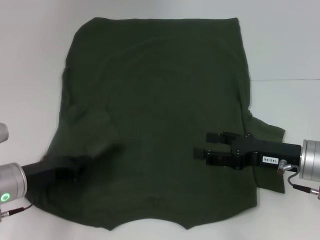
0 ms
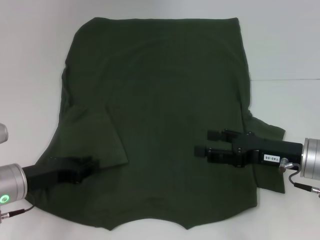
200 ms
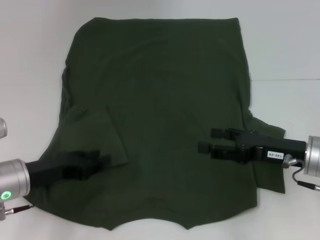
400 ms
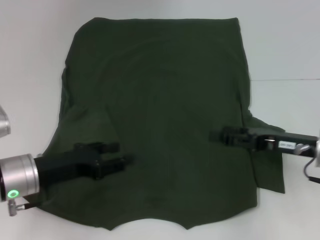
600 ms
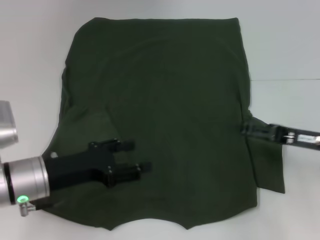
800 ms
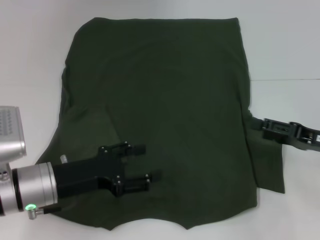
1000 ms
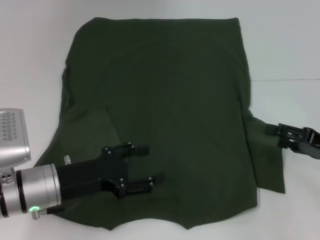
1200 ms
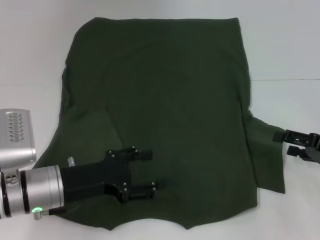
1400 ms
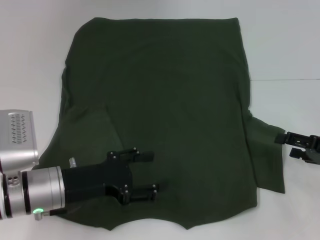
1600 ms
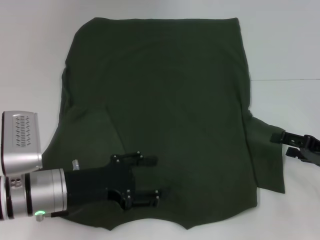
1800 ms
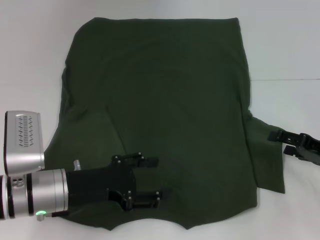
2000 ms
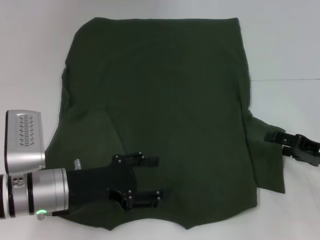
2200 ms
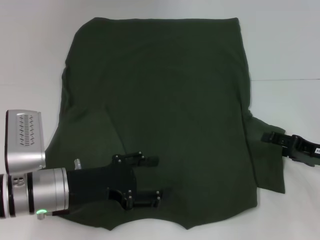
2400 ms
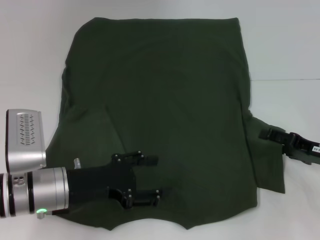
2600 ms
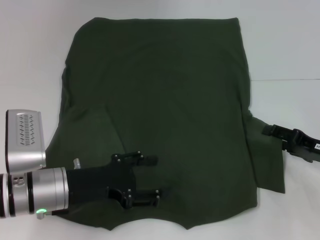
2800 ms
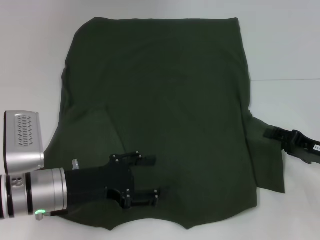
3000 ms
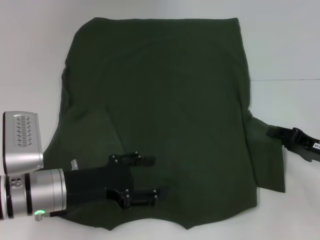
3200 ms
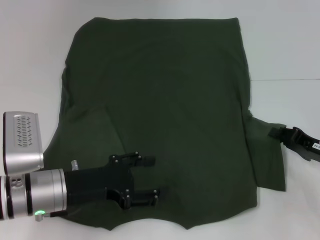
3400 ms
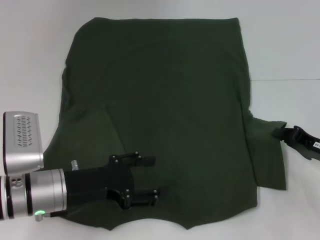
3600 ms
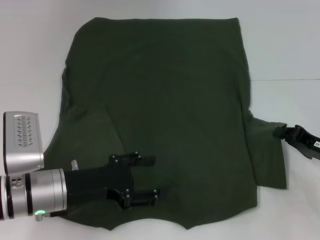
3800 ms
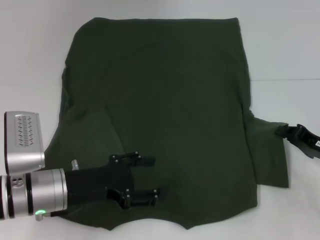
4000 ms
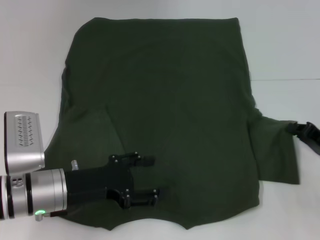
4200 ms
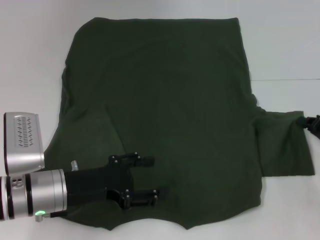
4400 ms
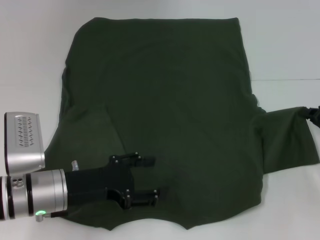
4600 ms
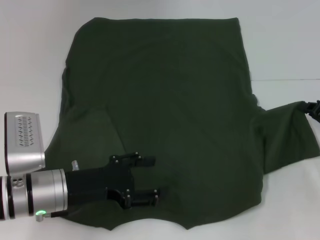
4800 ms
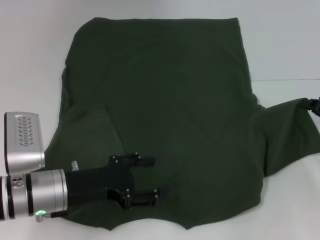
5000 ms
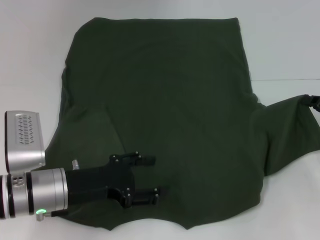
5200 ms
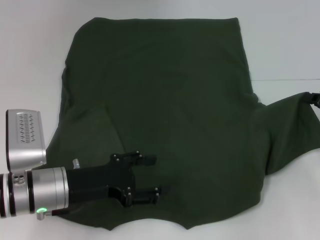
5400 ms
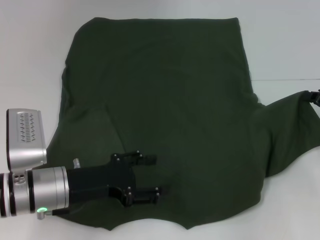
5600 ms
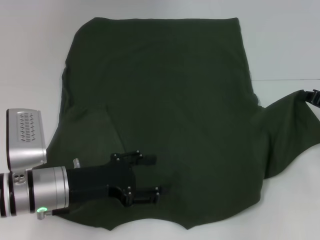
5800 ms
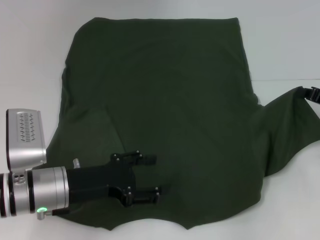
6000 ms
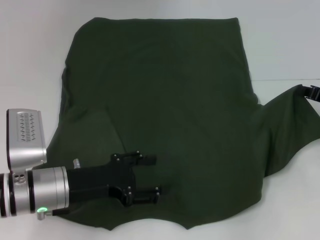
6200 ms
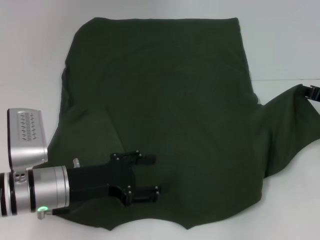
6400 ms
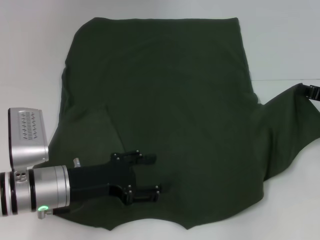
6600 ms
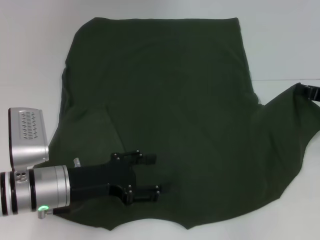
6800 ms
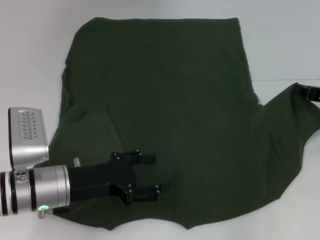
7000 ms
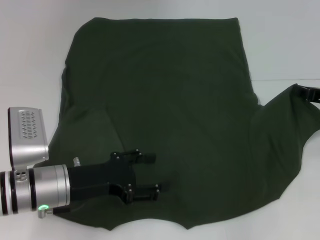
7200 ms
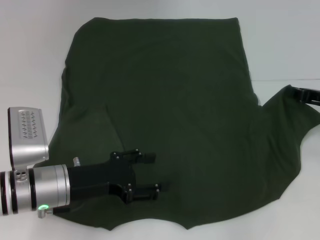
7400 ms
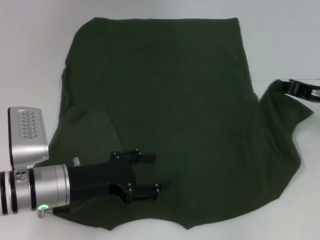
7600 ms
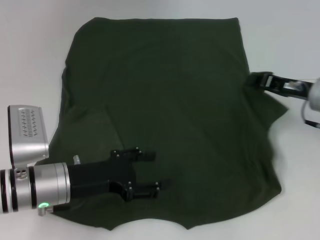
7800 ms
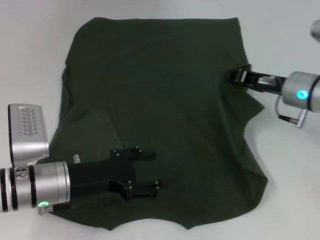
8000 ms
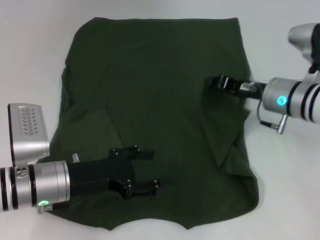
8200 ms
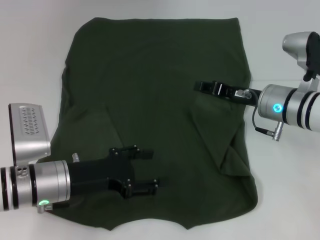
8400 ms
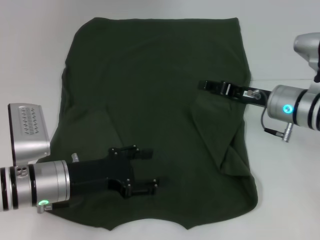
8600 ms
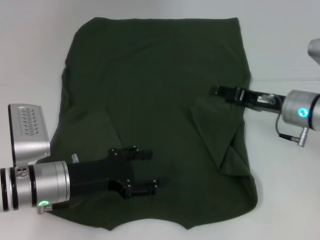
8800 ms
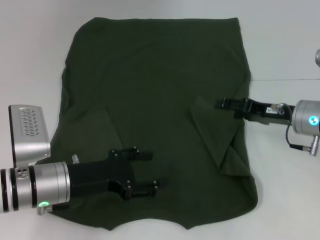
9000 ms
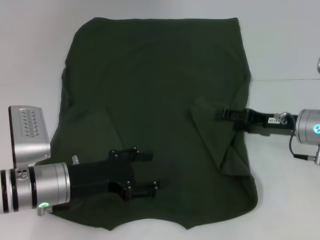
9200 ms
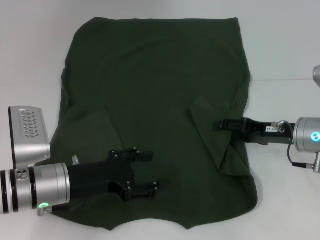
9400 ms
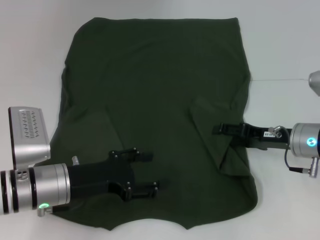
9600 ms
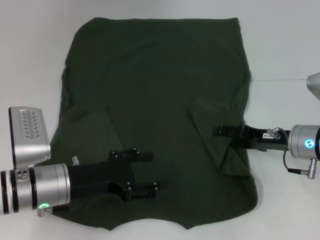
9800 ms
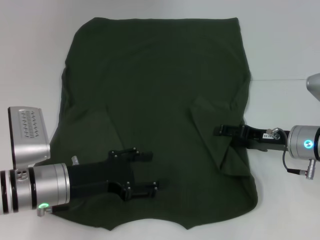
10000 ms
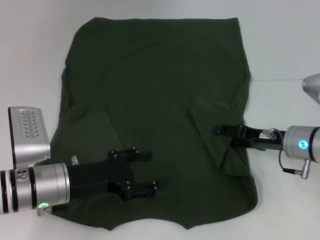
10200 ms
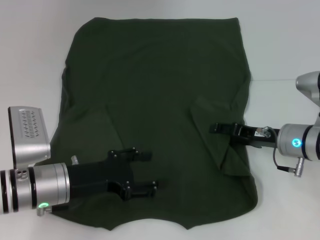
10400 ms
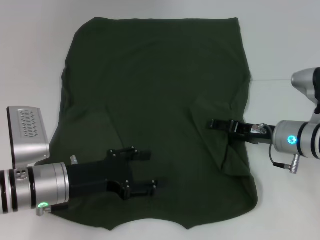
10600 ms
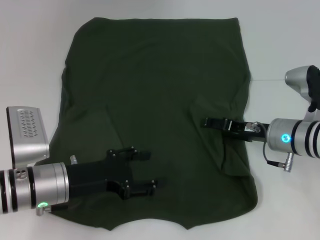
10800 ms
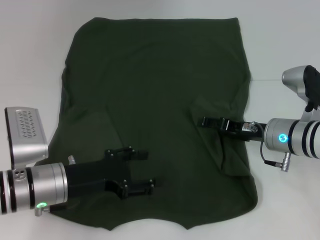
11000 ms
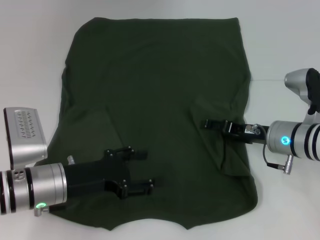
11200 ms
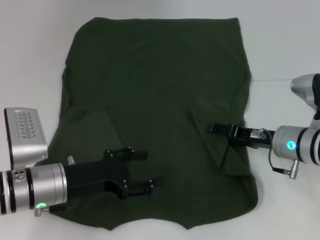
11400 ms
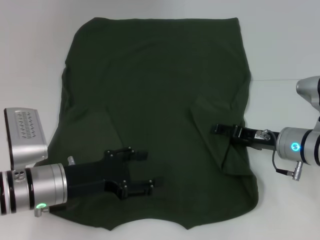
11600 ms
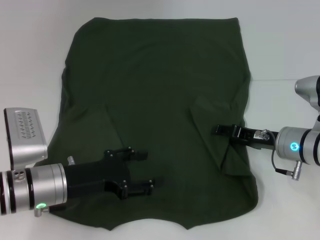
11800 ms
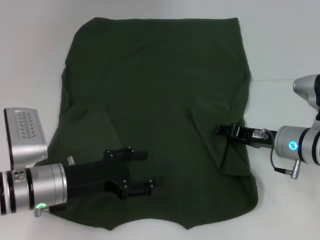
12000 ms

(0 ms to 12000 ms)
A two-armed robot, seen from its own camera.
0 ms - 1600 ms: The right gripper travels to the right by about 10 cm. Meanwhile the left gripper travels to the right by roughly 5 cm, and opens its fingers.
1600 ms - 3000 ms: The grippers make only small movements.
3000 ms - 4400 ms: The right gripper closes up.
4400 ms - 6000 ms: The right gripper goes some 5 cm forward.
6000 ms - 7600 ms: The grippers make only small movements.
7600 ms - 9000 ms: The right gripper is displaced to the left by about 5 cm, and opens.
9000 ms - 12000 ms: The grippers move only a little.

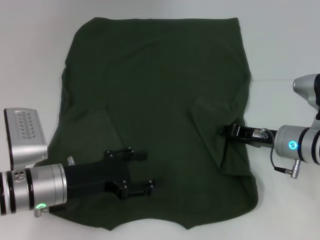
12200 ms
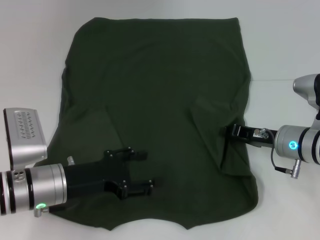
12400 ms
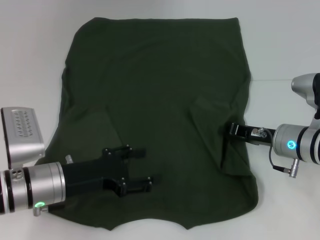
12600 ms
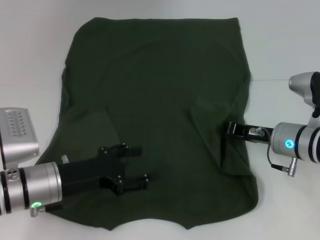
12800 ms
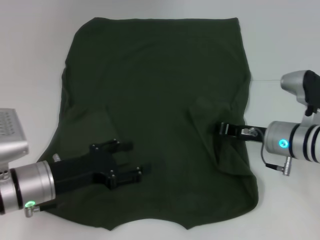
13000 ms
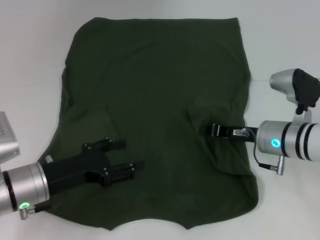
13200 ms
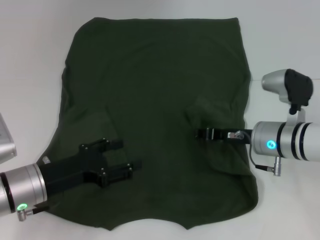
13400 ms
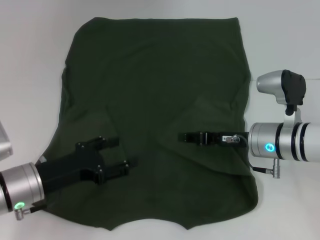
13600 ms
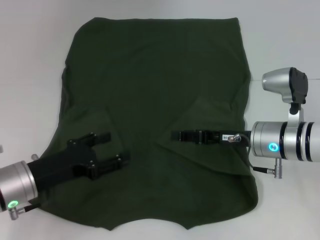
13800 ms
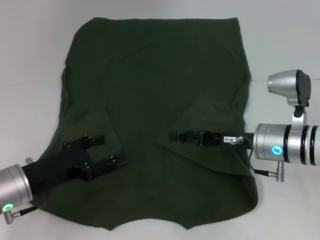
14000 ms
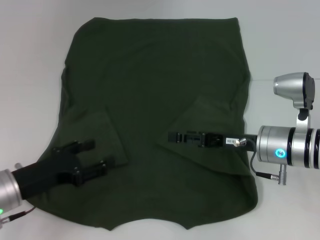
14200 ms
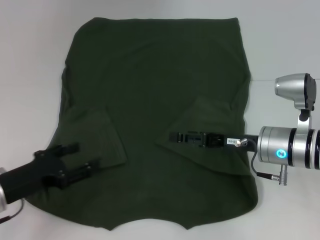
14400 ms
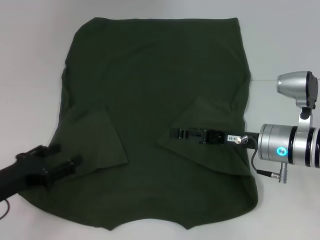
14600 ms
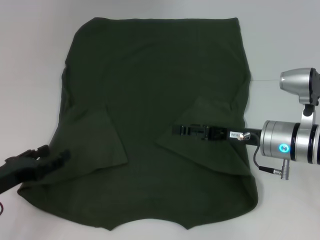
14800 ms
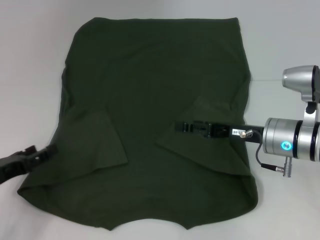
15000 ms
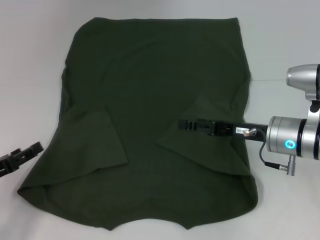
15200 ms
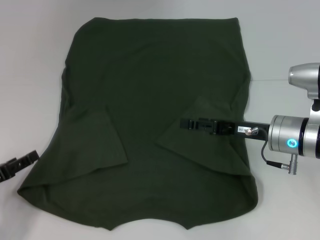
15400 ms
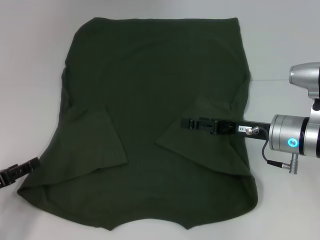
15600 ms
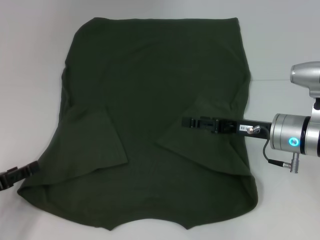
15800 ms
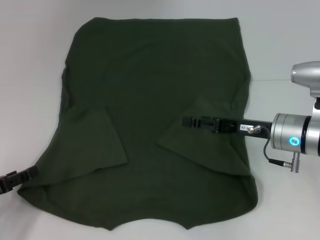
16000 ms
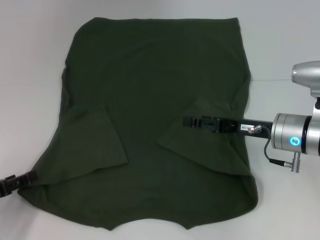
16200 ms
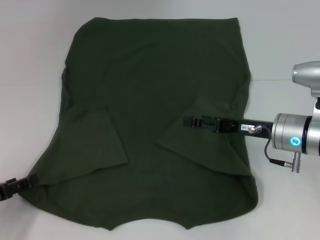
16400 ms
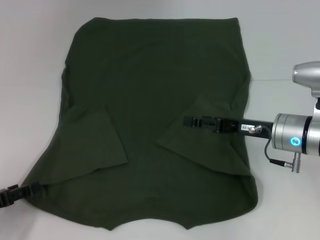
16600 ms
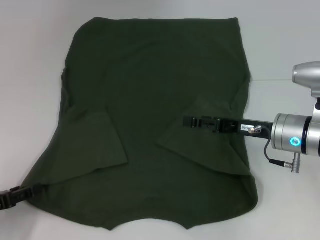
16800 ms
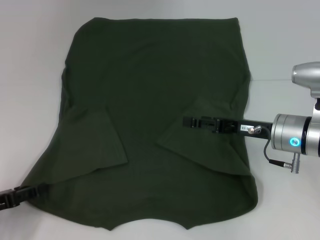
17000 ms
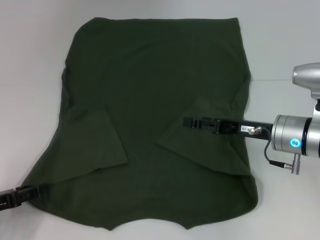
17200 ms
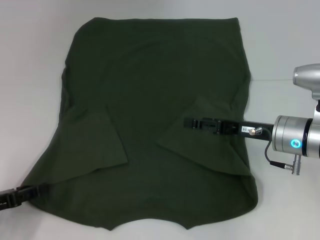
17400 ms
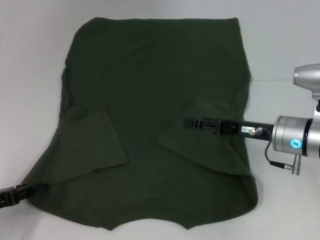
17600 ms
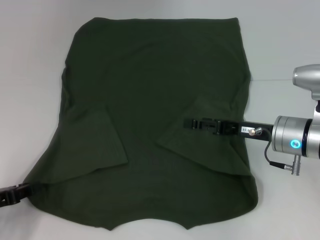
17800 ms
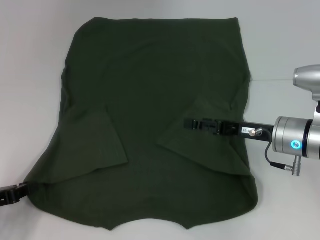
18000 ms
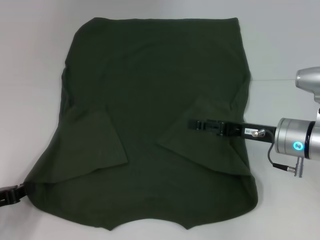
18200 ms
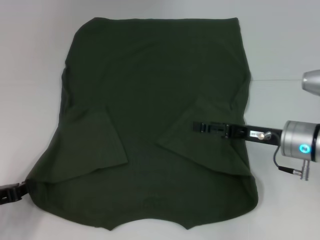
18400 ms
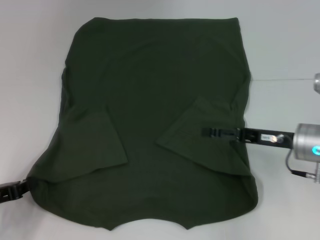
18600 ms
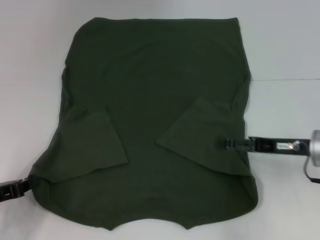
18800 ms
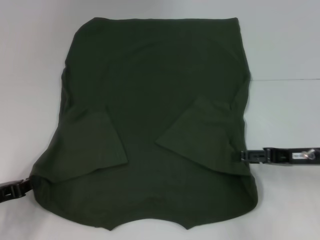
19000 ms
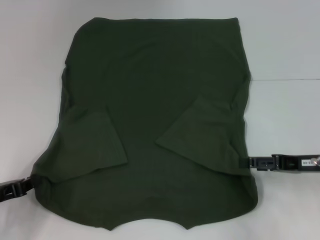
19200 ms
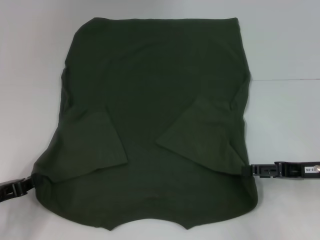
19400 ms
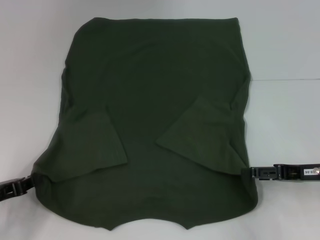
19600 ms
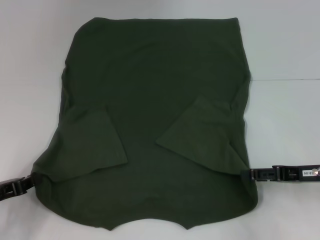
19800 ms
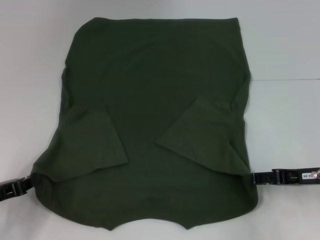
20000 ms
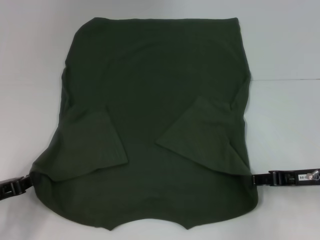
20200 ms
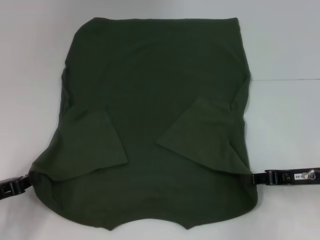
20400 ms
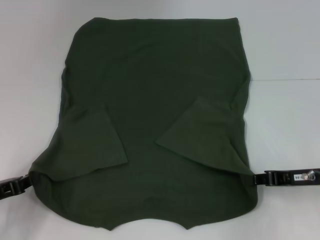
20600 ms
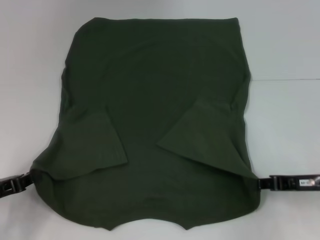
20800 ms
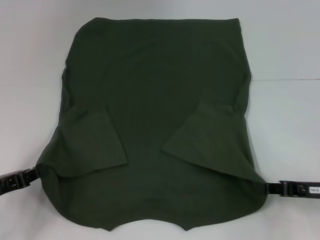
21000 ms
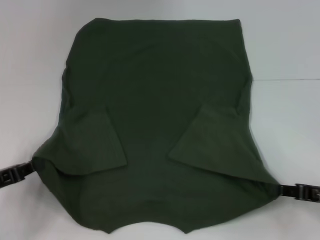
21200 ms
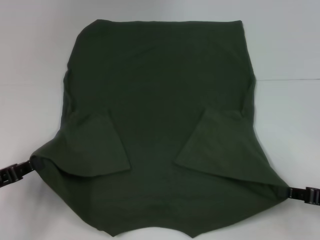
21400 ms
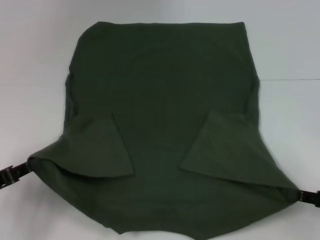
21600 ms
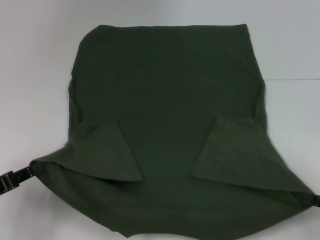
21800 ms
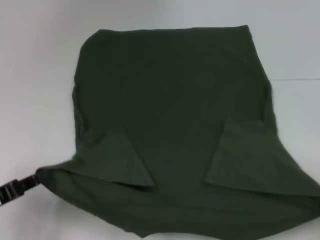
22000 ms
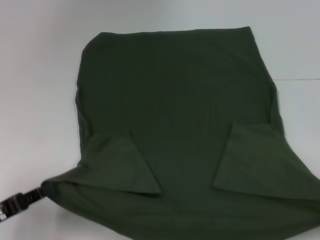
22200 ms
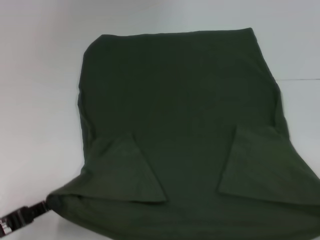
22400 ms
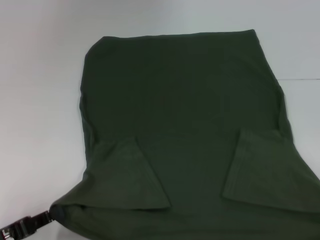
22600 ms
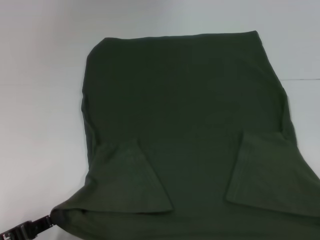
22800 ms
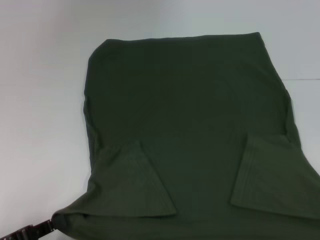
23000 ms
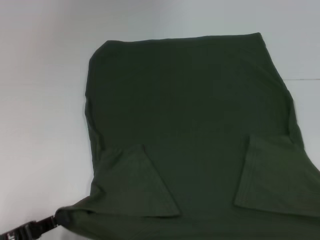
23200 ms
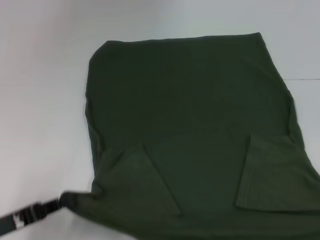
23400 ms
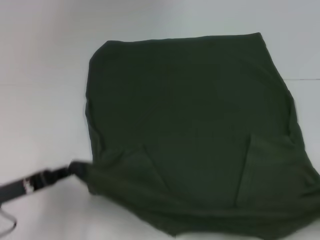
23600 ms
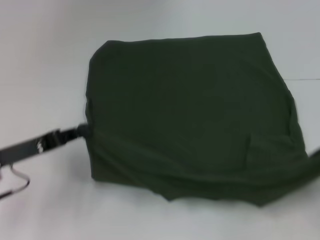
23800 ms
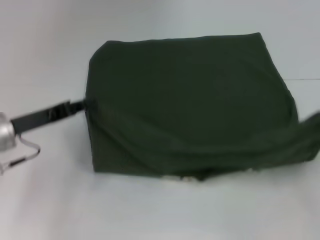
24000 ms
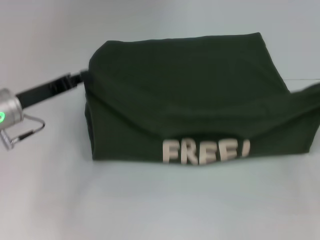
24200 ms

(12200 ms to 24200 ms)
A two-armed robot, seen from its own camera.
Step, 13800 ms - 18200 ms: Grab the bottom left corner with your left hand.
Step, 18400 ms - 20400 ms: Grab the bottom right corner with your right hand.
12200 ms - 13800 ms: The right gripper ends up approximately 5 cm from where it was.
13800 ms - 15200 ms: The right gripper opens up. The left gripper travels to the left by approximately 10 cm.
15200 ms - 16600 ms: There are only small adjustments of the grippers.
18200 ms - 19800 ms: The right gripper moves to the right, some 10 cm.
19800 ms - 21200 ms: The right gripper shifts by some 5 cm, and closes.
21200 ms - 22600 ms: The right gripper is displaced backward and to the right by roughly 15 cm, while the left gripper travels backward by some 5 cm.
22600 ms - 24200 ms: Both grippers move forward and upward, approximately 20 cm.
